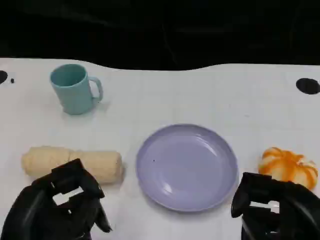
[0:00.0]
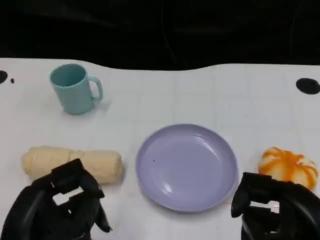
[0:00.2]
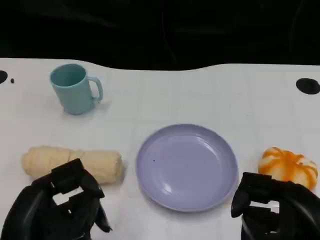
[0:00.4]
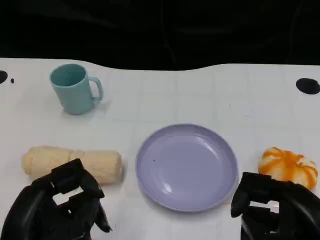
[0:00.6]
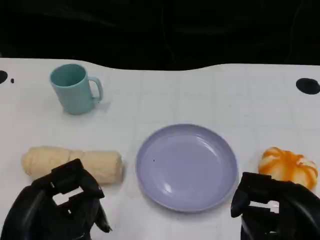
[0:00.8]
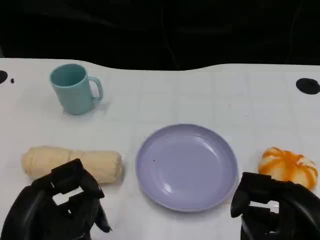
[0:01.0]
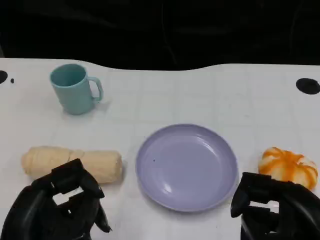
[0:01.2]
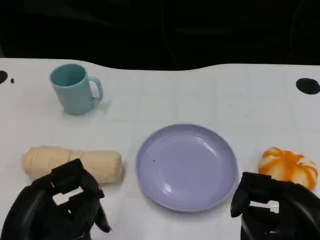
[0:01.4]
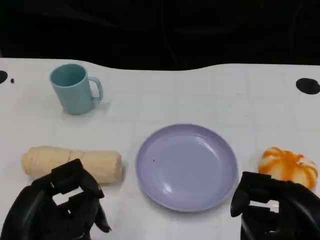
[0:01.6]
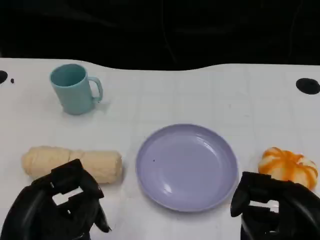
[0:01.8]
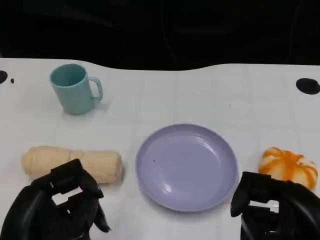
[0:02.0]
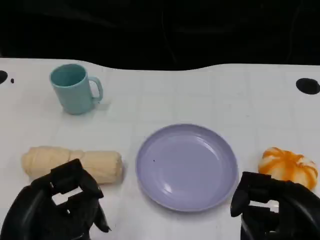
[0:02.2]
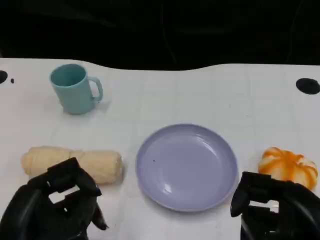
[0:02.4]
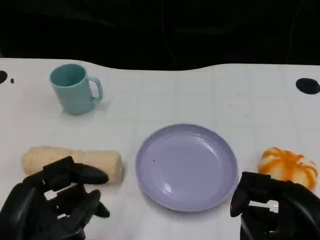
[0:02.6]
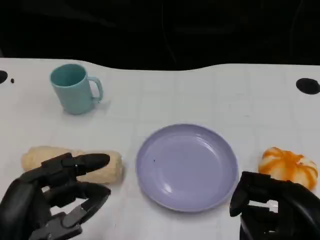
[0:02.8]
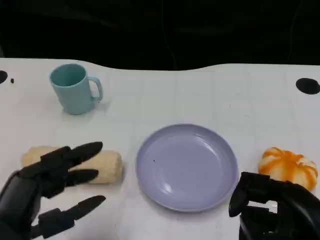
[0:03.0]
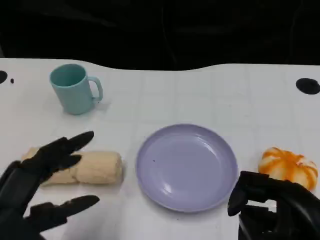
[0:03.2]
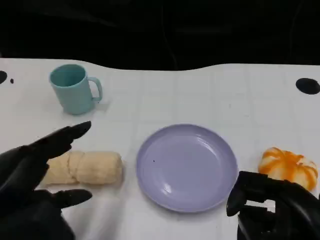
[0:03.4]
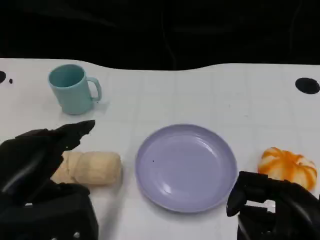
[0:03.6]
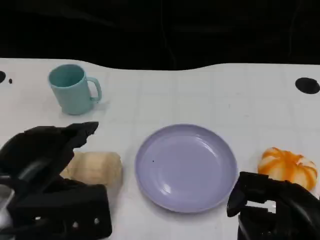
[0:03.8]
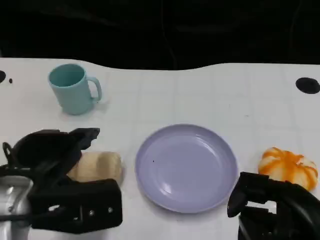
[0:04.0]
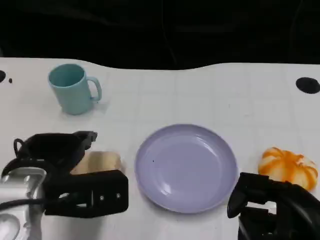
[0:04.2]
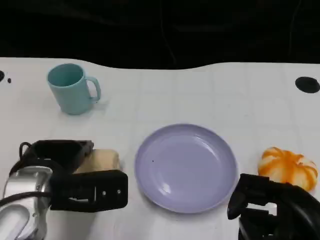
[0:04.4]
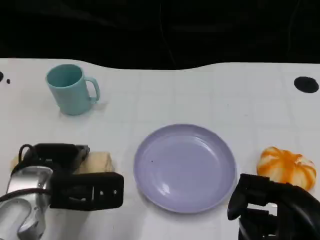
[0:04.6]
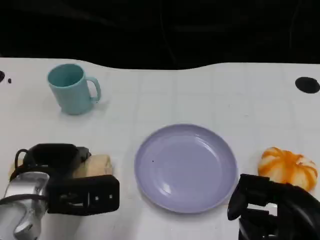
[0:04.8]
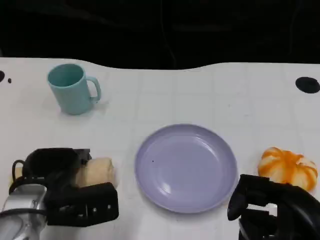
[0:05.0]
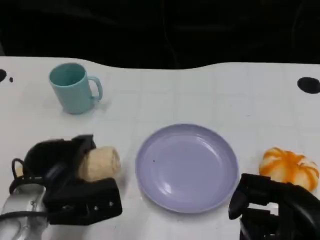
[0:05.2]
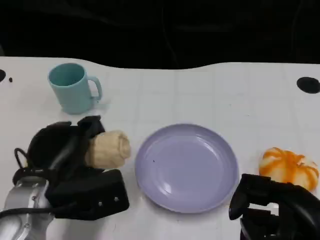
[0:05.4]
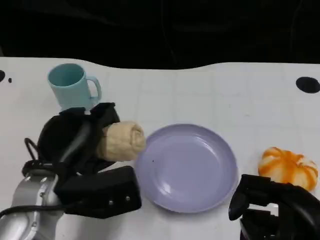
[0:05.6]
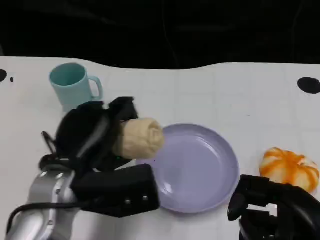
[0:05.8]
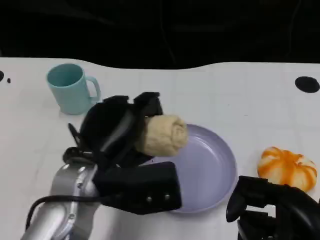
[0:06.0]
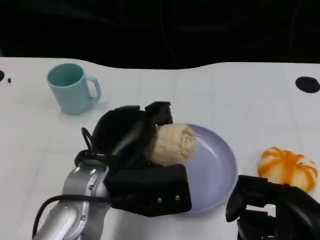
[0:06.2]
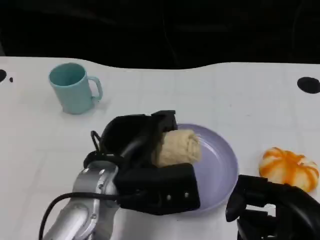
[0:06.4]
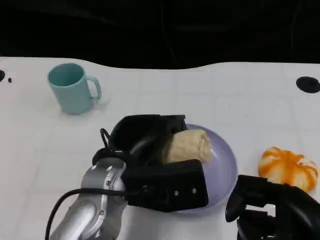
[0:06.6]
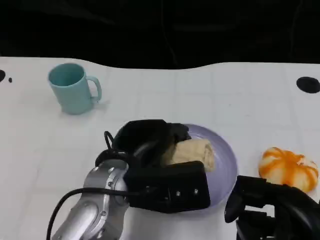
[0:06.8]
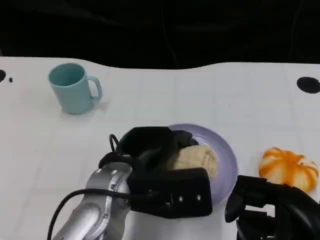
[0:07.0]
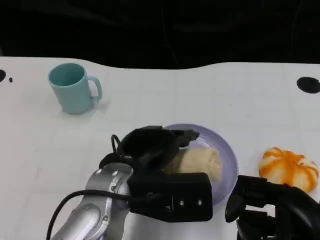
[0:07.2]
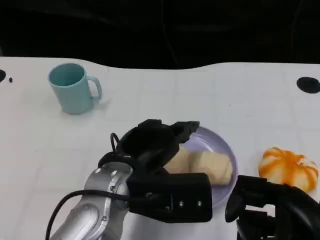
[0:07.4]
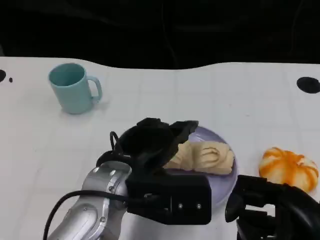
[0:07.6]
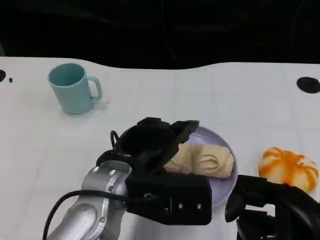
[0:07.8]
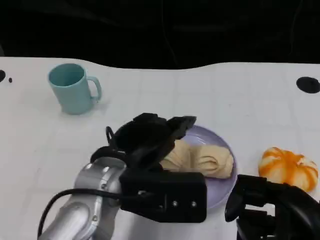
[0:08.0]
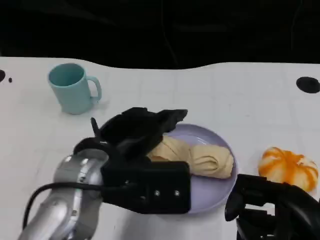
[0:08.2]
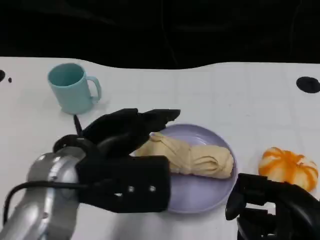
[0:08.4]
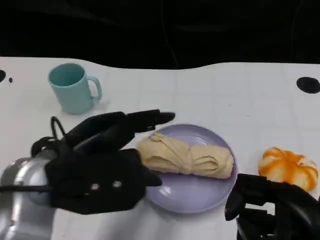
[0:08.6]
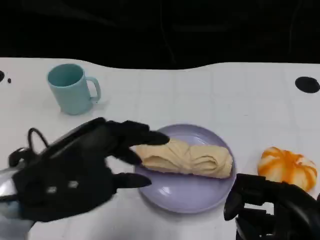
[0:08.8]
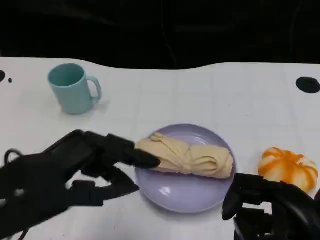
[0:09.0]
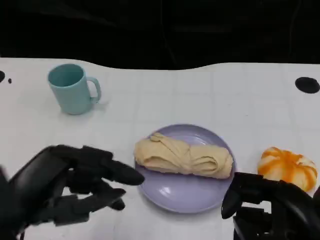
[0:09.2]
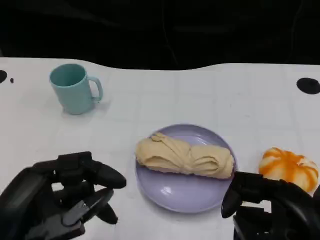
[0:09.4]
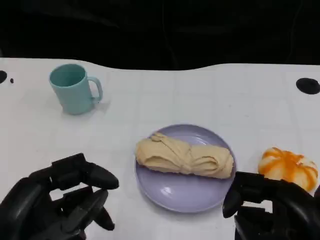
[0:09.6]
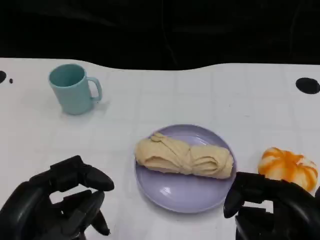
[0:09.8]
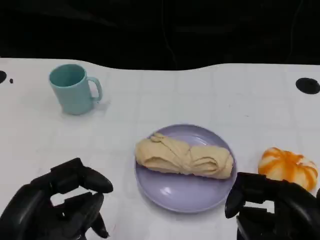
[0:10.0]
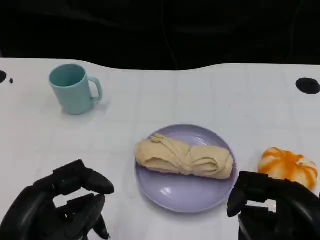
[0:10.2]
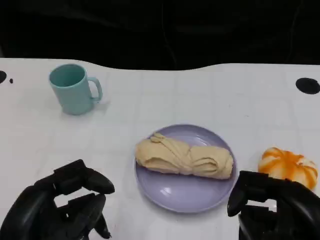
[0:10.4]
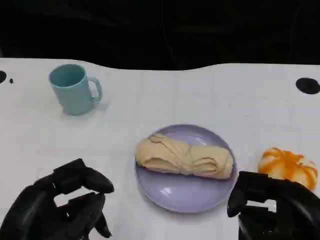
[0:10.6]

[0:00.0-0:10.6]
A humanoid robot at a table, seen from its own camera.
Task of the whole recording: Grasp the towel on the left side of the plate with the left hand and place it into the plate.
0:00.0 to 0:01.6: Both hands stay about where they are.
0:03.0 to 0:04.6: The left hand shifts some 15 cm forward.
0:04.6 to 0:06.0: The left hand is displaced to the right and upward by about 10 cm.
0:07.6 to 0:09.0: The left hand is displaced to the left and backward by roughly 15 cm.
0:09.0 to 0:10.6: The left hand moves downward and backward, some 10 cm.

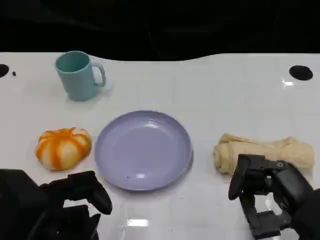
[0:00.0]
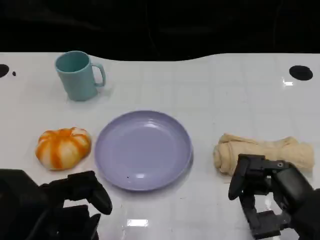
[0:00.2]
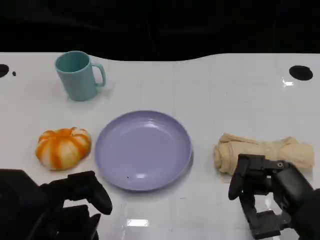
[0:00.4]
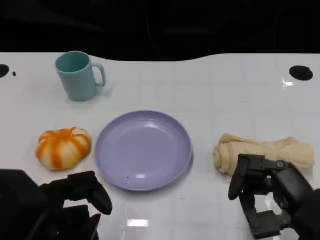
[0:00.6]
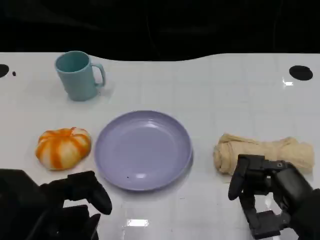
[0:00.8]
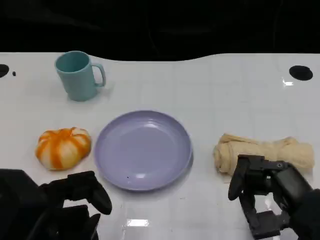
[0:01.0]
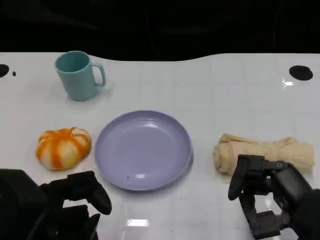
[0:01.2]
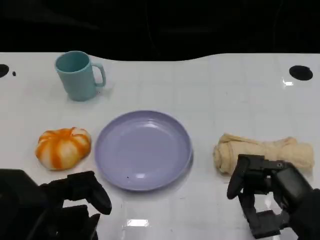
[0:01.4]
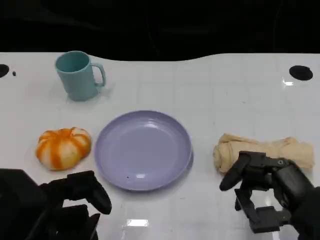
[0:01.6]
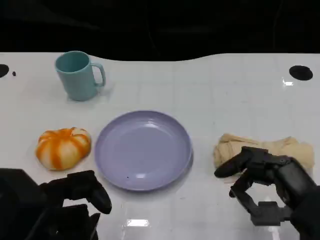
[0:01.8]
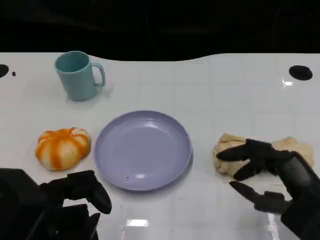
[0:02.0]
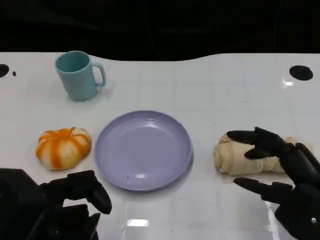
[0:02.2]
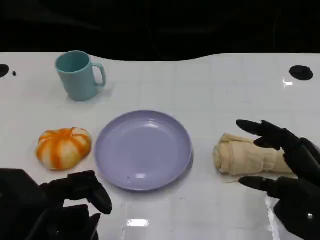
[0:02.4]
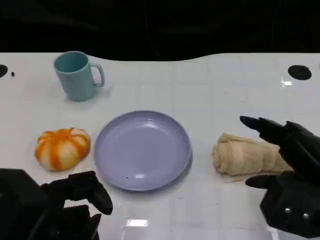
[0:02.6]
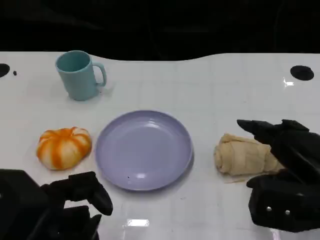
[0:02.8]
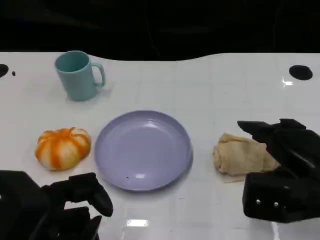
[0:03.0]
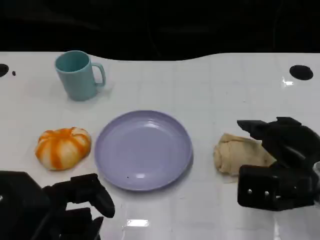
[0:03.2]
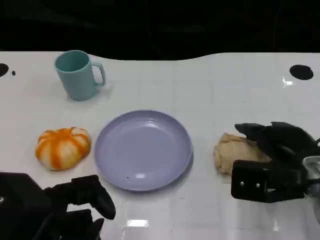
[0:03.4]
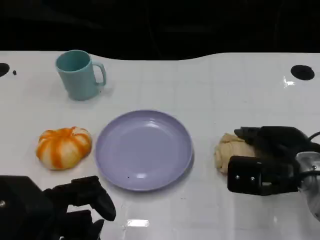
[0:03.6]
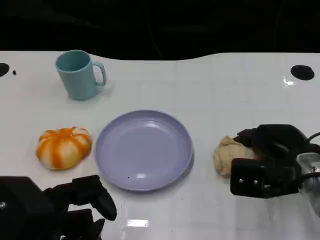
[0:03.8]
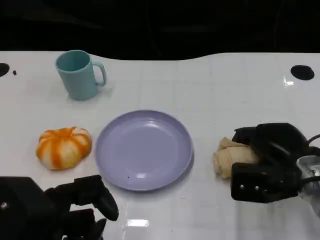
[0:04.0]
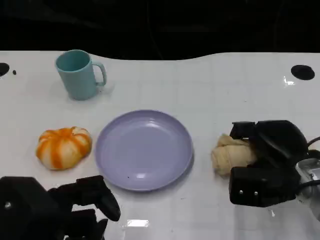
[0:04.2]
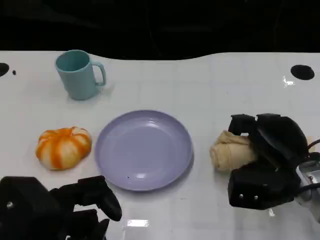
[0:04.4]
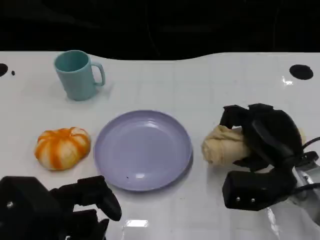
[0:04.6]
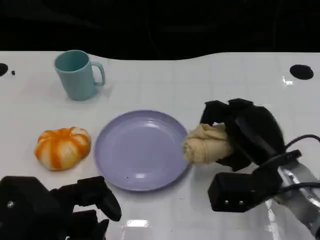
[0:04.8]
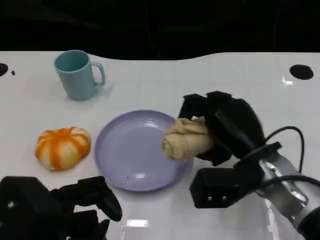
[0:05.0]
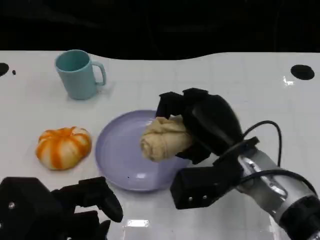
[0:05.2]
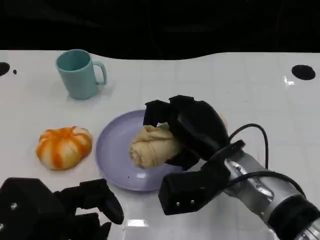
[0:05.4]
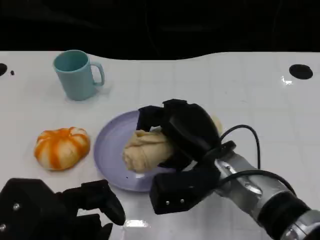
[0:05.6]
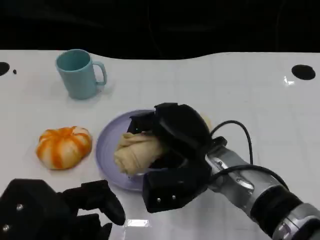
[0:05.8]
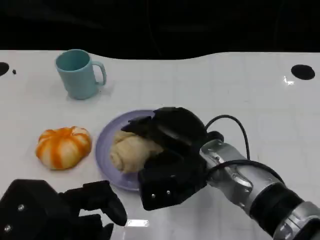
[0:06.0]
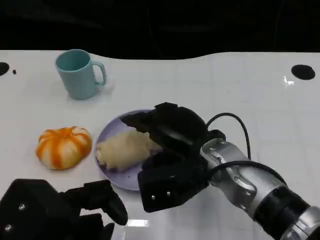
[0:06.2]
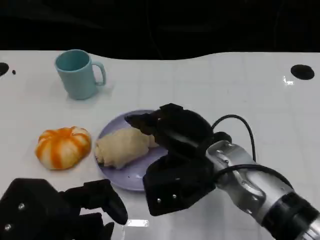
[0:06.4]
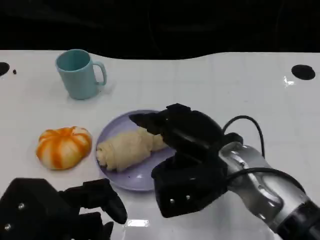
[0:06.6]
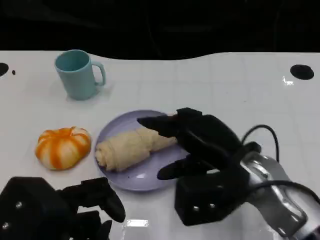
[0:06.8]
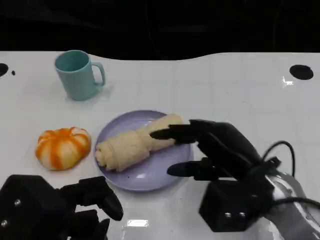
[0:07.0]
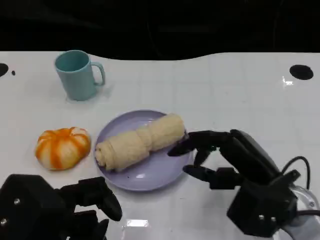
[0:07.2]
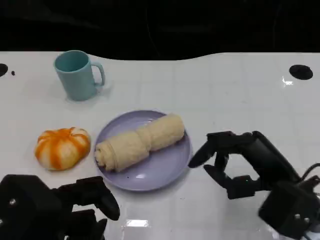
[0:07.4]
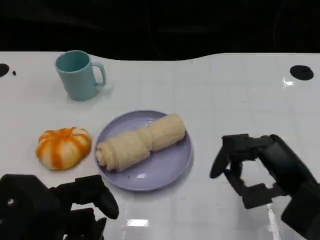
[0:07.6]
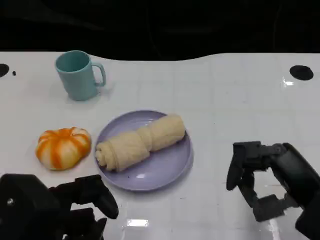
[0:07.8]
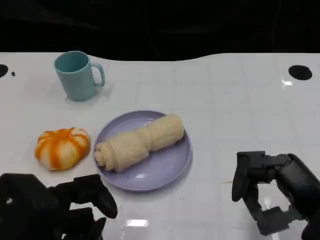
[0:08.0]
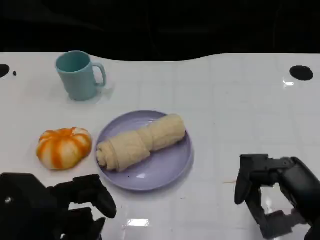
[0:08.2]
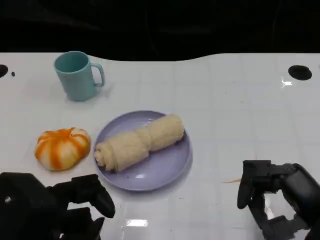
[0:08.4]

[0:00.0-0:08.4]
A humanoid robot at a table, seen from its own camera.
Task of the whole recording: Grasp the towel on the left side of the plate with the left hand and place it into the plate.
0:00.0 to 0:01.4: Both hands stay about where they are.
0:01.4 to 0:02.8: The right hand ends up roughly 5 cm from where it was.
0:02.8 to 0:04.2: The right hand heads forward and downward, covering roughly 10 cm.
0:04.2 to 0:05.6: The right hand moves to the left, some 15 cm.
0:05.6 to 0:07.0: The right hand is displaced to the right by some 10 cm.
0:07.0 to 0:08.4: The right hand travels to the right and backward by some 10 cm.

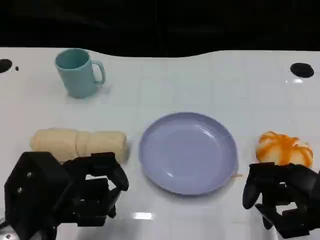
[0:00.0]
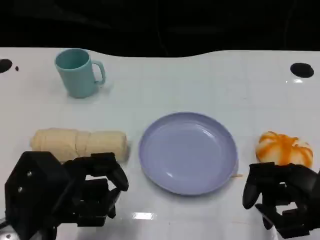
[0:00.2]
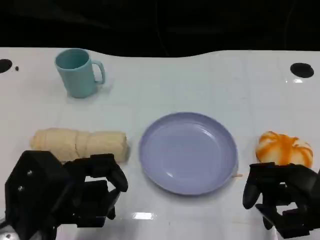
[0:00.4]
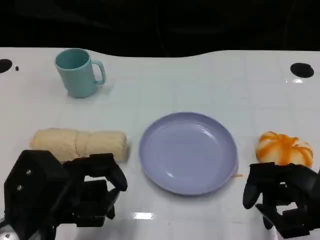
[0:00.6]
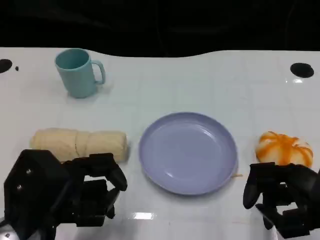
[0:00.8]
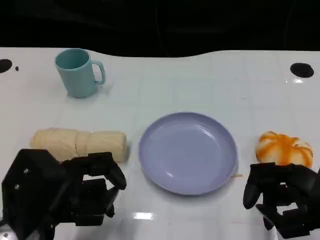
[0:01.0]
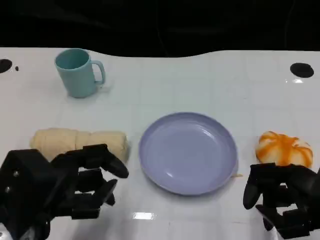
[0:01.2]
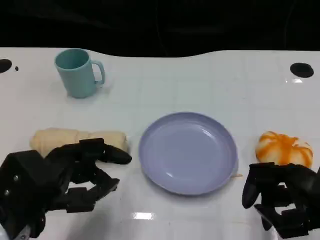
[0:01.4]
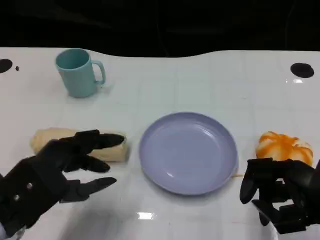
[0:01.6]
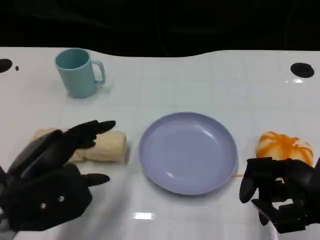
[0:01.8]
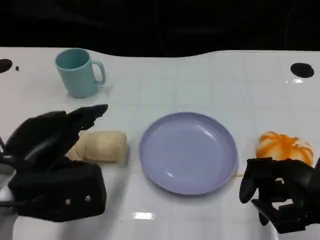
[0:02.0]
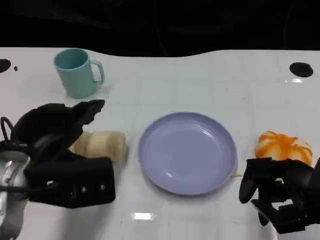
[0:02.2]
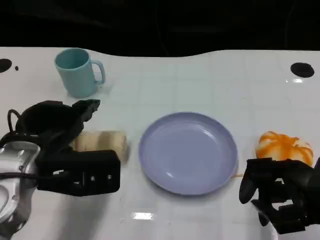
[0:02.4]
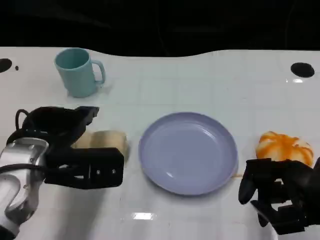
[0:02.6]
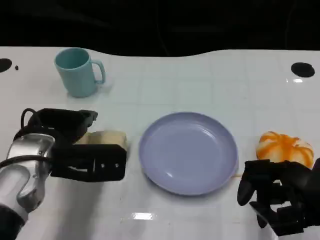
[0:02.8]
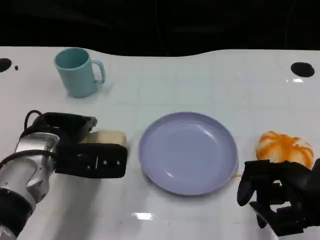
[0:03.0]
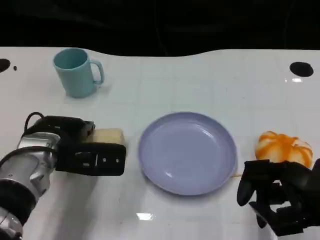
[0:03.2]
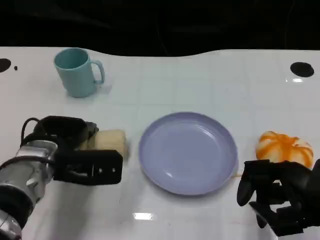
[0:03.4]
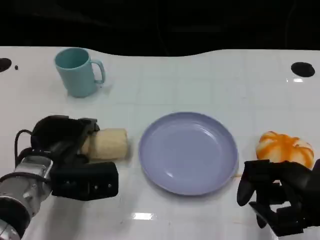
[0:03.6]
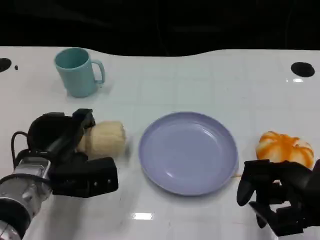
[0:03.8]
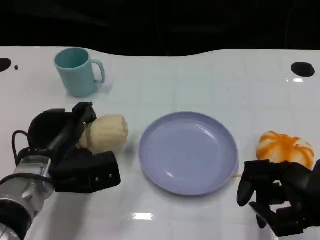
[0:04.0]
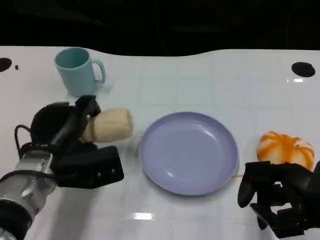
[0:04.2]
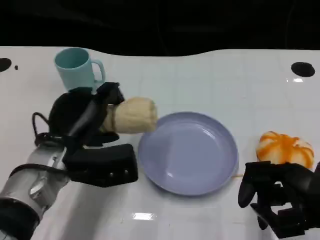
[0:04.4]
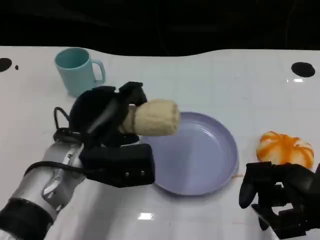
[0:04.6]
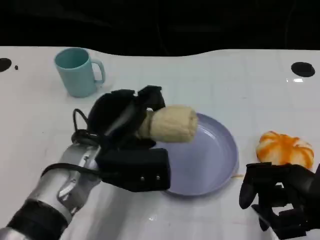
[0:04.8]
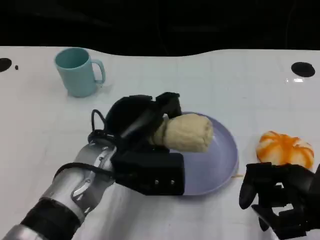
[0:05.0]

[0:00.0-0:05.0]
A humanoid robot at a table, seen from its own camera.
Task of the whole recording: Grasp the towel on the left side of the plate with the left hand and place it into the plate.
0:01.6 to 0:03.4: The left hand moves forward and downward, approximately 10 cm.
0:03.4 to 0:05.0: The left hand moves to the right, some 10 cm.
